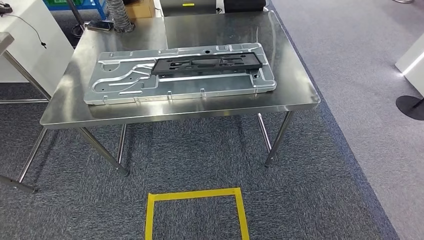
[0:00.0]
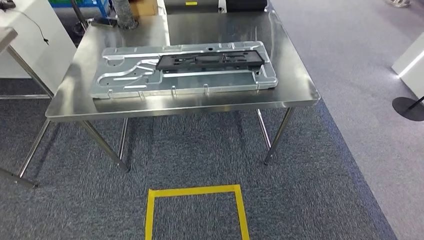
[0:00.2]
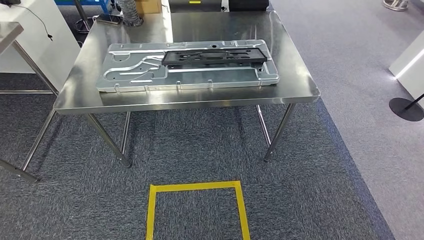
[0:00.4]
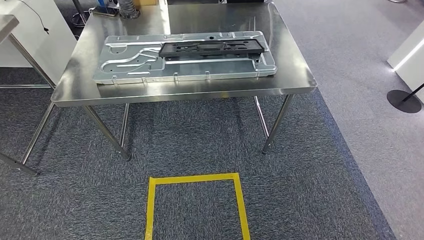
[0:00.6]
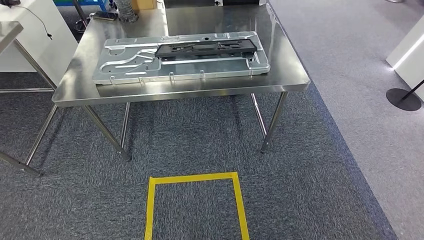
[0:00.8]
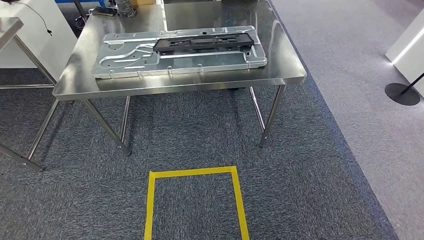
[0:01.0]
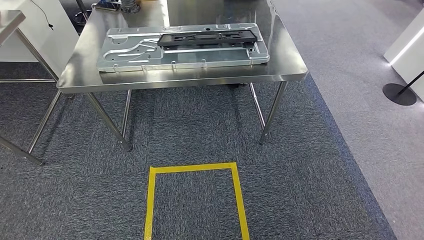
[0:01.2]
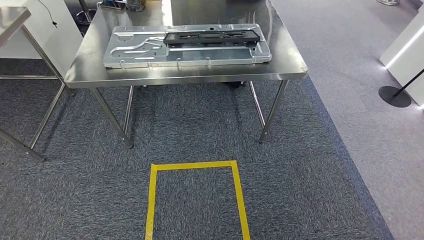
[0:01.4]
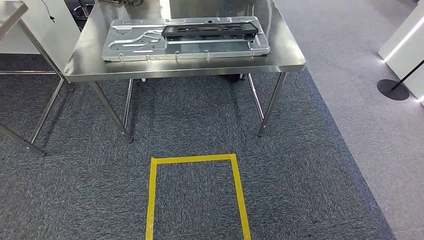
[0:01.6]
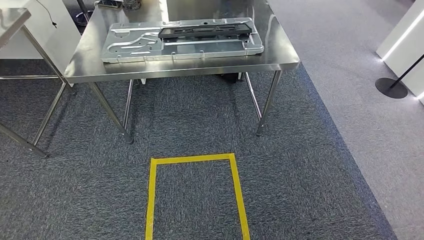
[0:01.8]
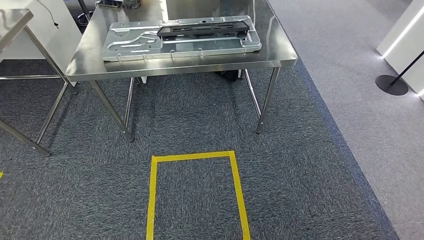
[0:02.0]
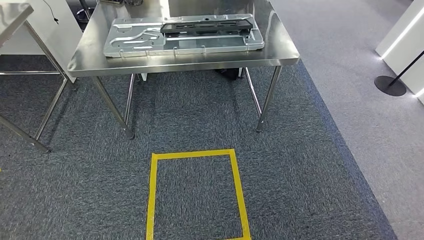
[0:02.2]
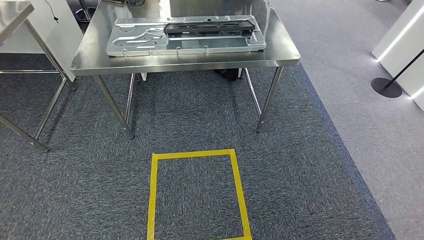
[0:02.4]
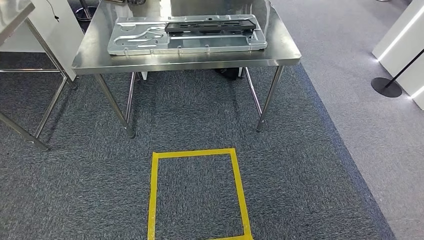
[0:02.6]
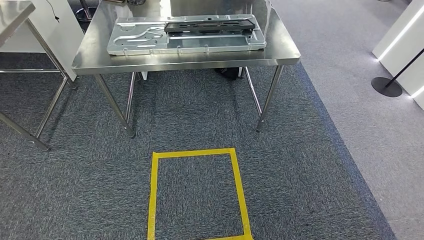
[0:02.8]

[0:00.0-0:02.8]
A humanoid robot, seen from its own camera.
Step, 0:00.0 to 0:02.8: Move to the initial position of the shelf.
0:01.4 to 0:02.8: The hands stay close to where they were, moving slightly.

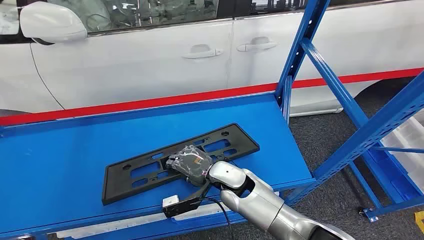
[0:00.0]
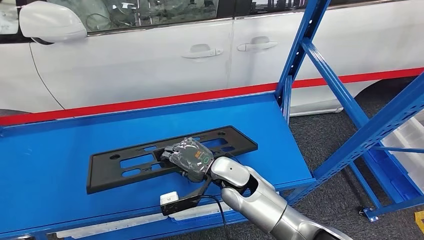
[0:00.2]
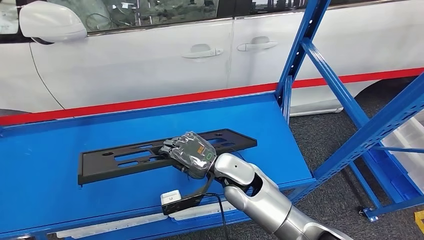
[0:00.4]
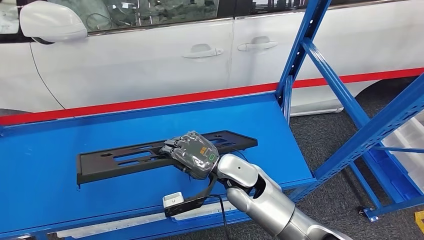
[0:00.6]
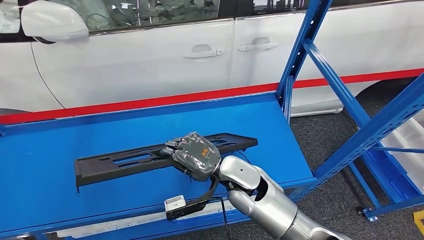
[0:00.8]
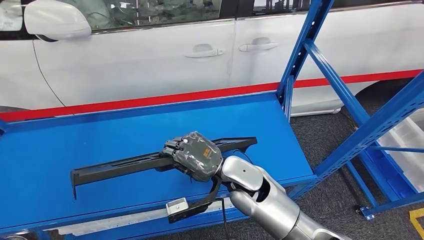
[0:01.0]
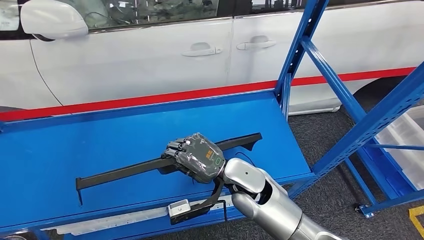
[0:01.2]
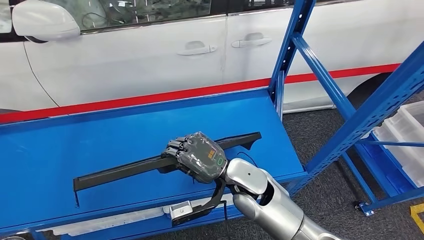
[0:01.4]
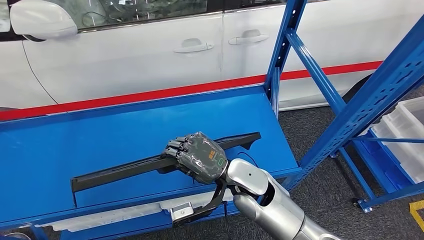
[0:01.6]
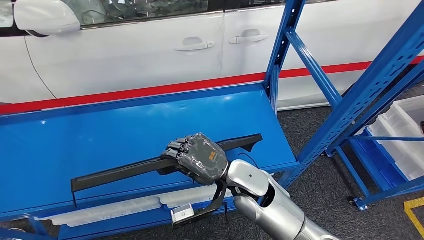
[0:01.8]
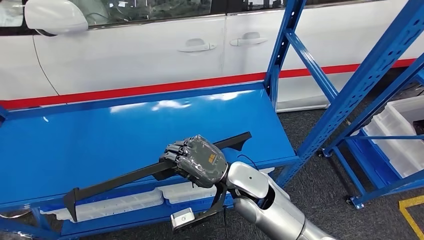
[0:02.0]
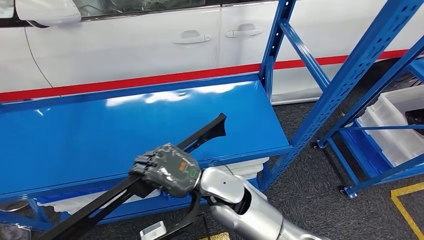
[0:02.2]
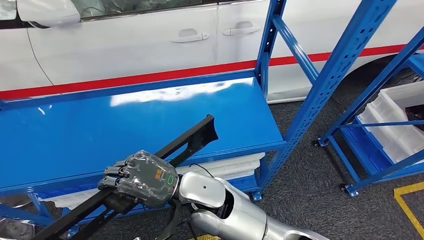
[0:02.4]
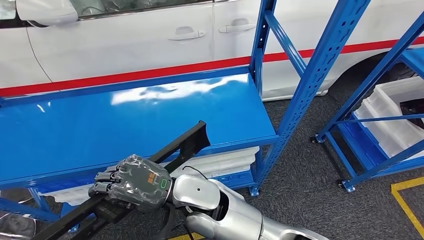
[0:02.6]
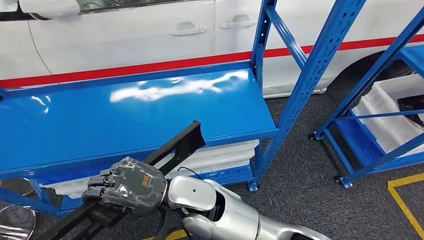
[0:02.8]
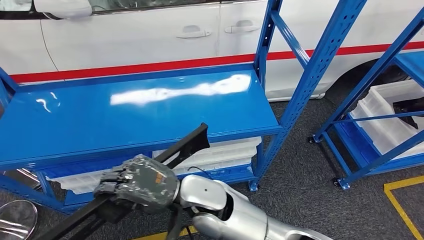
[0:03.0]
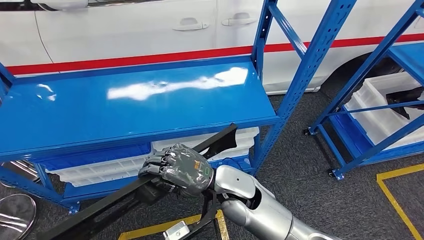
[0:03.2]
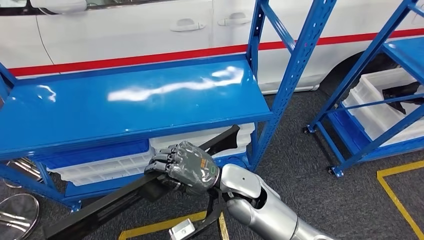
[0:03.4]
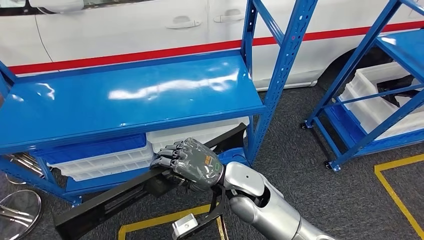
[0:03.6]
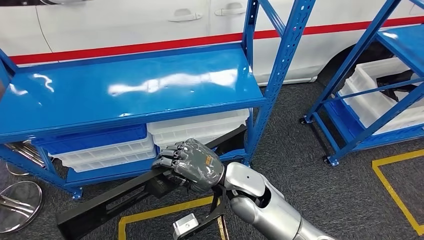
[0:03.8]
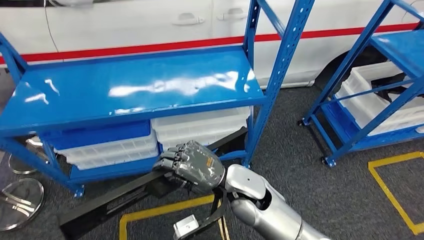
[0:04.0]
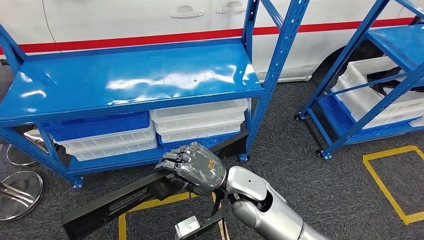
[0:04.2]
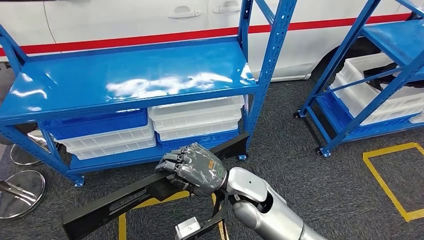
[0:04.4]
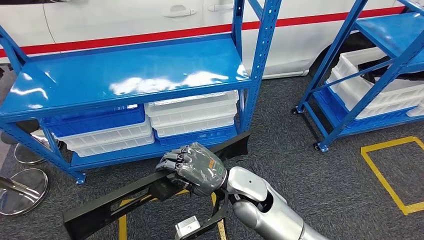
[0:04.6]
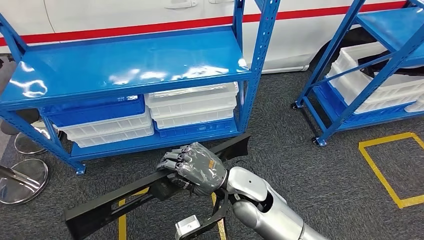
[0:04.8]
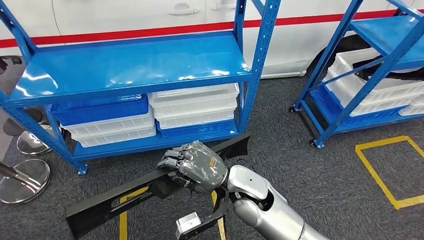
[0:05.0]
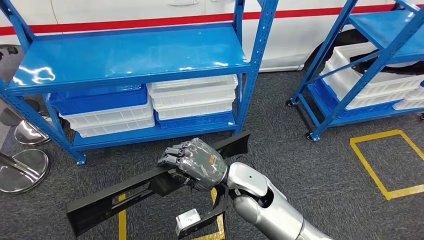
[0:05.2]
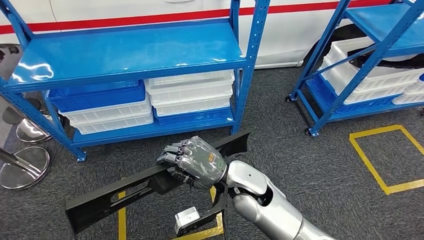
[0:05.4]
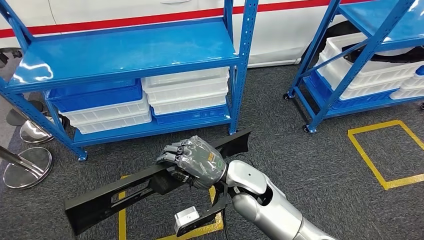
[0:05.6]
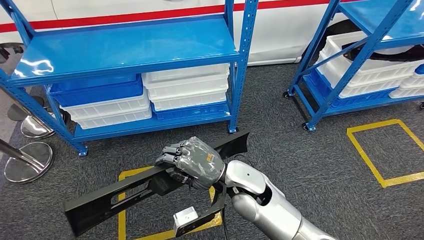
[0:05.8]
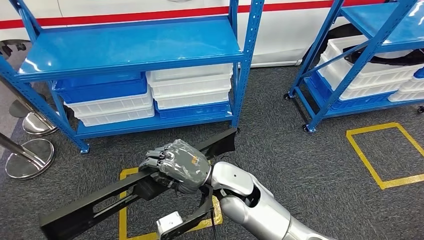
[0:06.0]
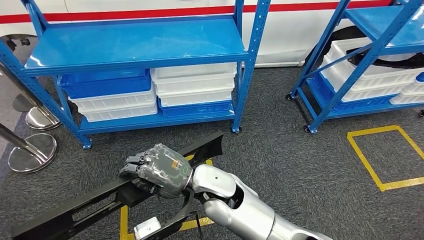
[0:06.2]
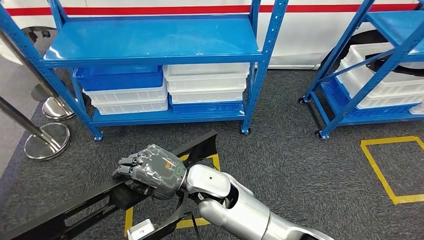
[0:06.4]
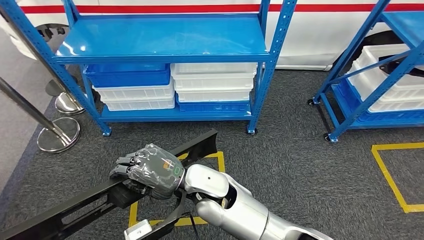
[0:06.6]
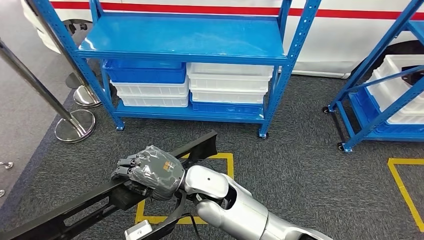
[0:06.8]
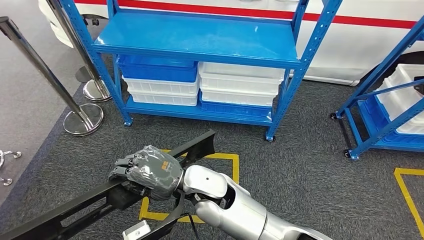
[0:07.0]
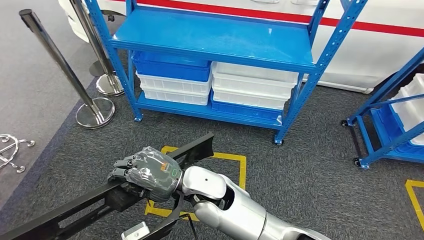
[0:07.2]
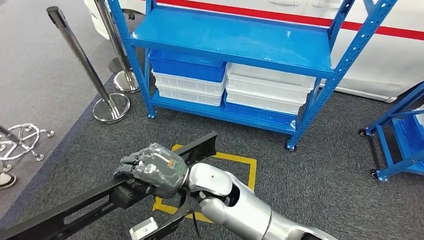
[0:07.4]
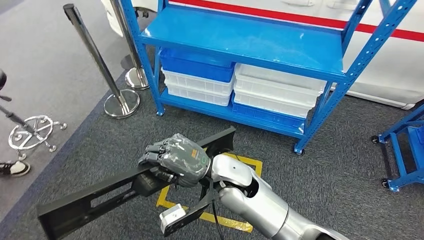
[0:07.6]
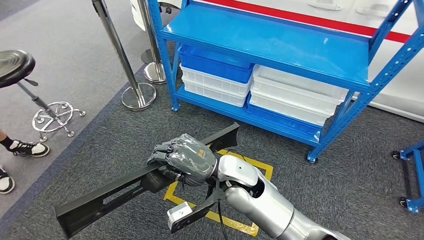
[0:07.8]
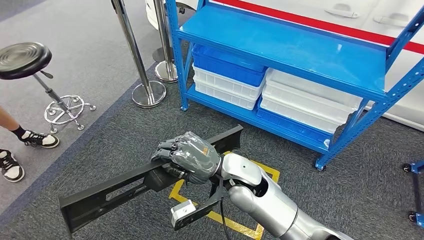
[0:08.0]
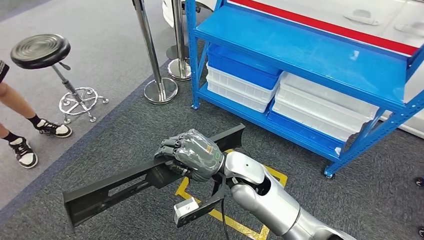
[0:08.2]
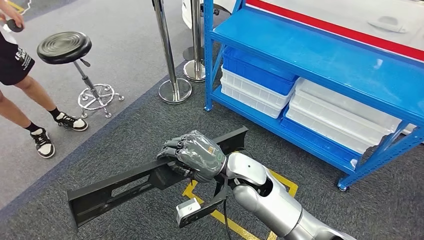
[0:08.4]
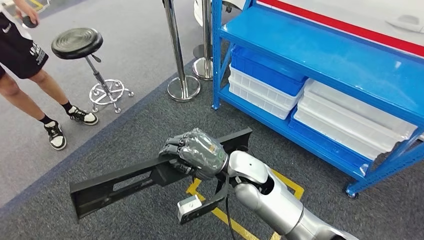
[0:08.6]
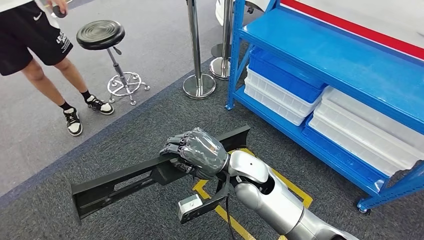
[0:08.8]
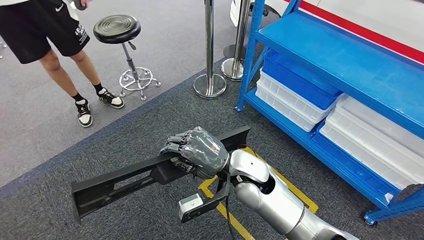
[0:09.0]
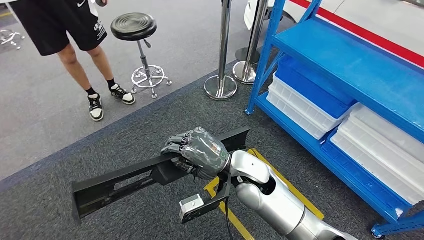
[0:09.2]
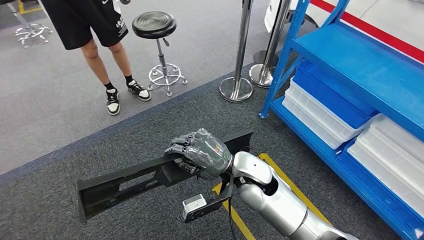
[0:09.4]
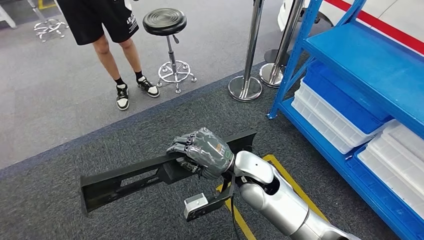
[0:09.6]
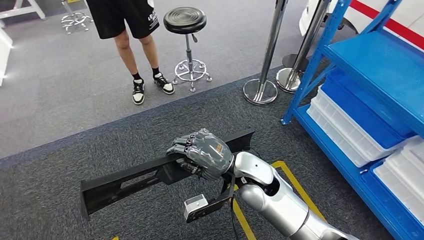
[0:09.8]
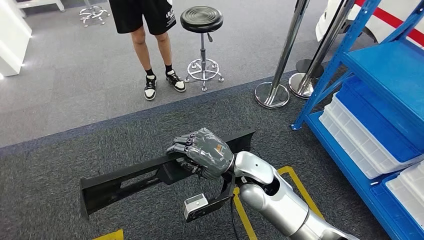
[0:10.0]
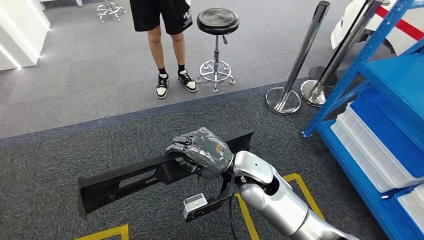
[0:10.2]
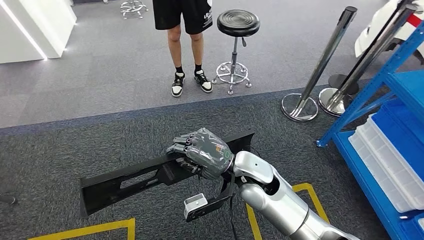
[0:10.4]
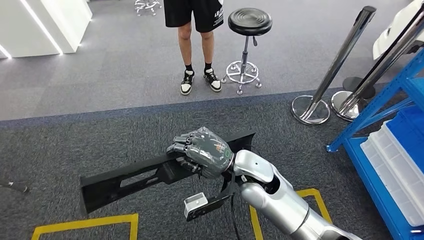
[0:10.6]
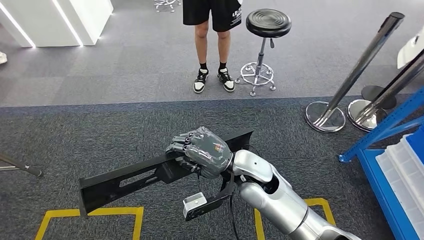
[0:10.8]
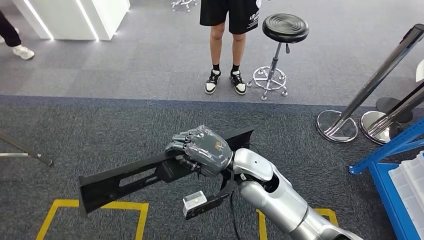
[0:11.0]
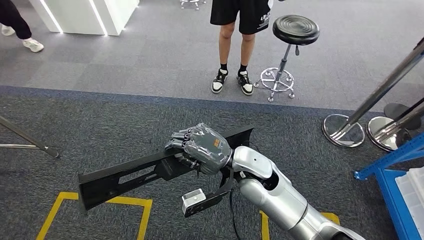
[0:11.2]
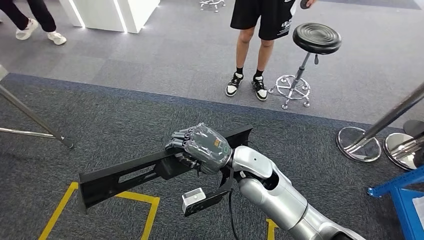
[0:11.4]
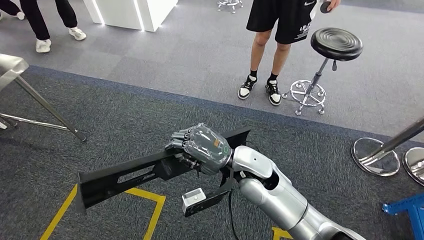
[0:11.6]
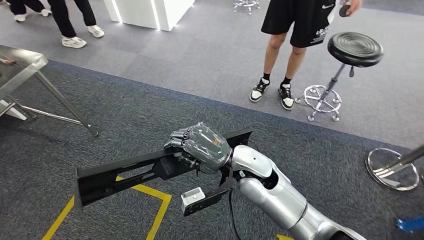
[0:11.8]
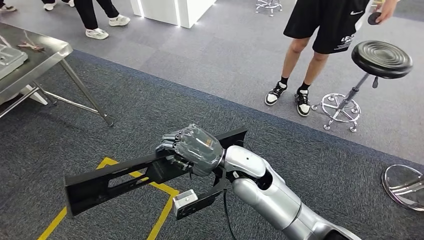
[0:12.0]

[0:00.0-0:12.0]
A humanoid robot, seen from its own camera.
Step, 0:00.0 to 0:03.8: Pick up the large material from the shelf.

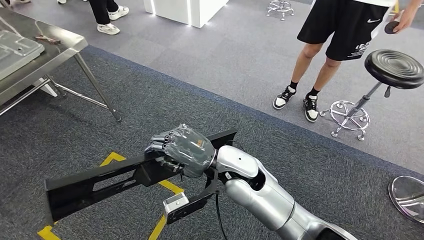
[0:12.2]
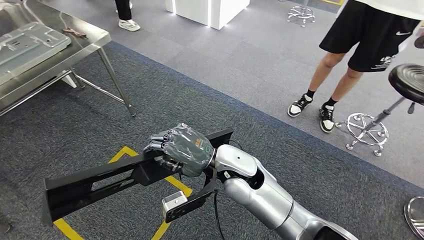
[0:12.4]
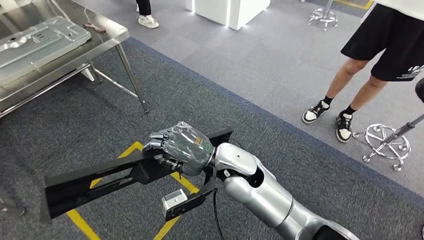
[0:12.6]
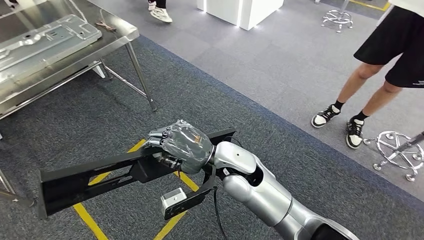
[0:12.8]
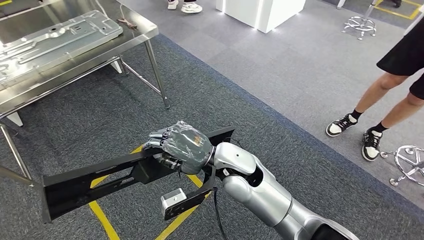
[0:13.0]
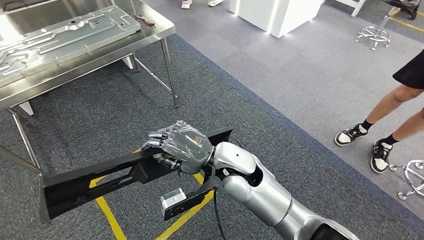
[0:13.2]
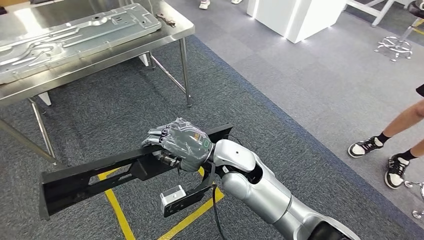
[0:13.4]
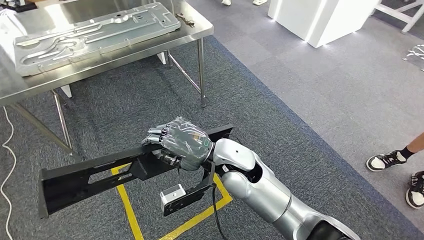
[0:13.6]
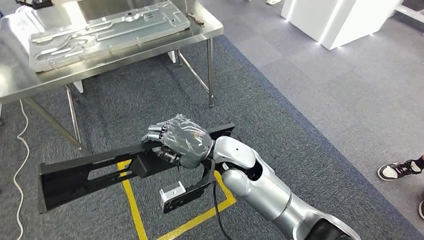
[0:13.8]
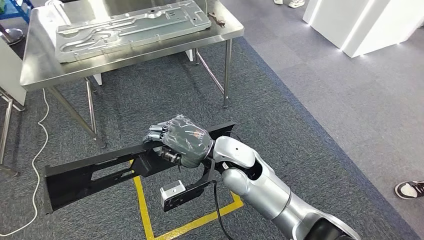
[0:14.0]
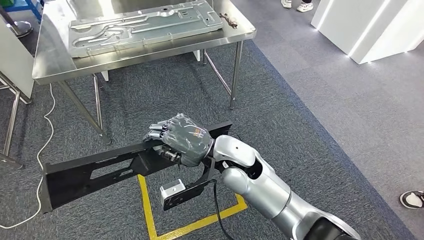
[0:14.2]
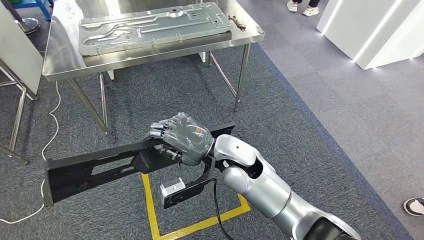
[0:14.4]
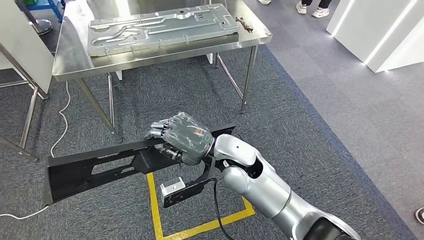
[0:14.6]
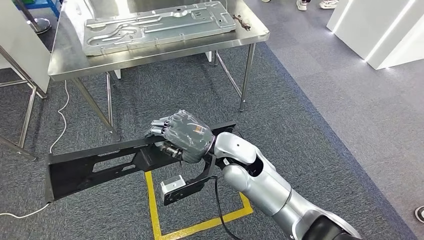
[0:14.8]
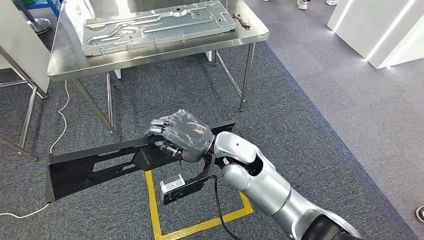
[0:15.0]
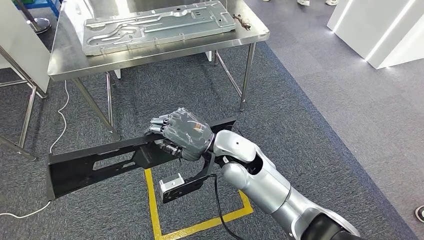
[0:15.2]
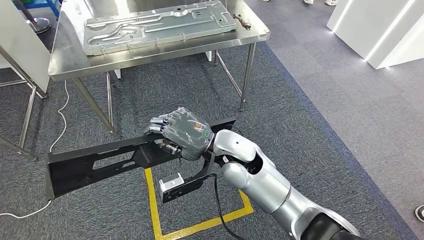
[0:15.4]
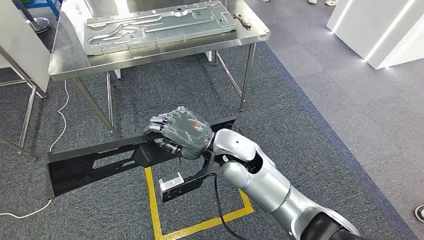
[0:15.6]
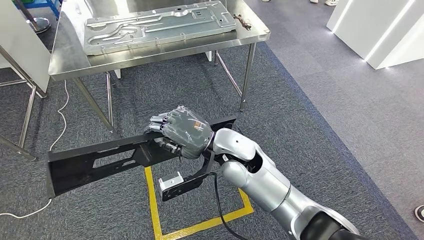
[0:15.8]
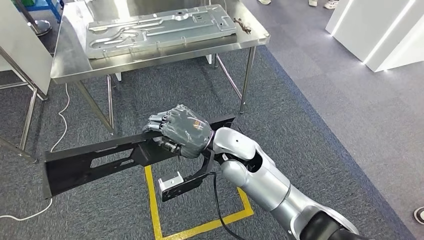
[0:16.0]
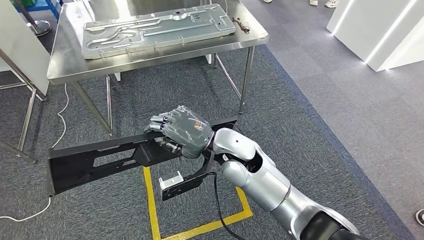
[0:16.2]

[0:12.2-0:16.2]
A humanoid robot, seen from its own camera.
0:14.8 to 0:16.2: Both hands stay about where they are.
